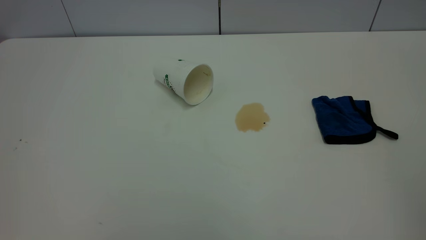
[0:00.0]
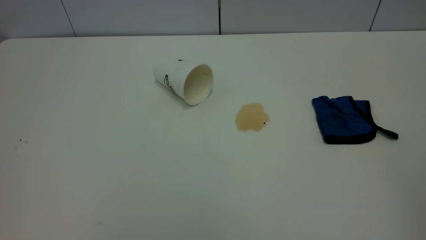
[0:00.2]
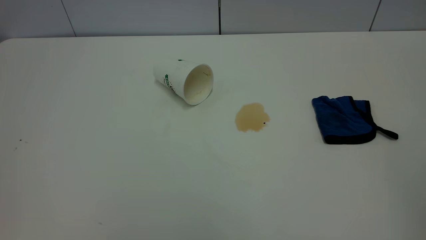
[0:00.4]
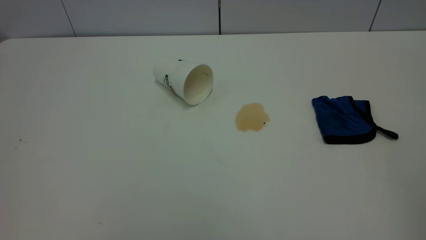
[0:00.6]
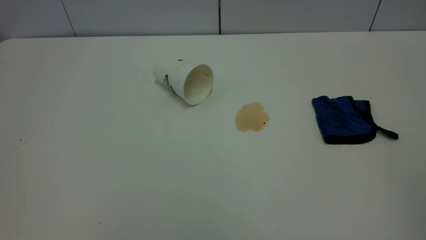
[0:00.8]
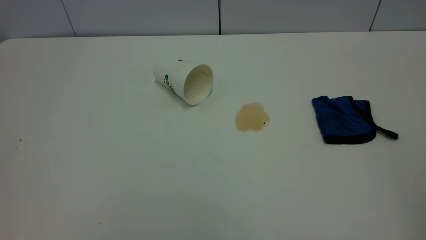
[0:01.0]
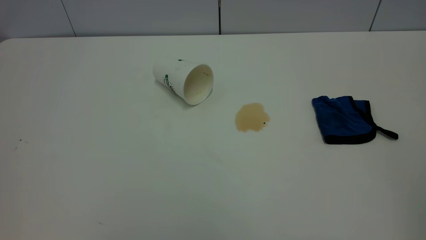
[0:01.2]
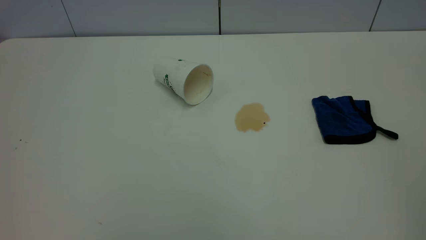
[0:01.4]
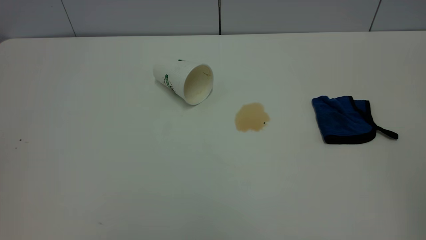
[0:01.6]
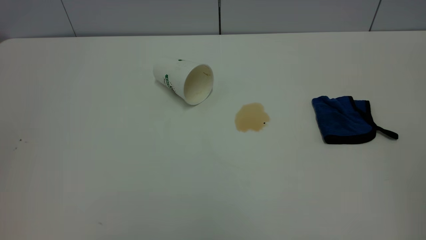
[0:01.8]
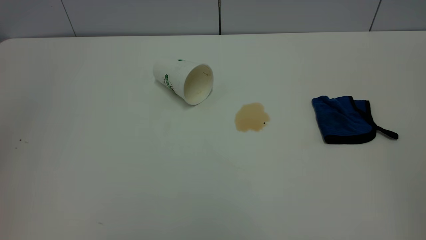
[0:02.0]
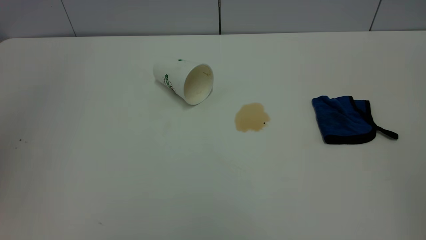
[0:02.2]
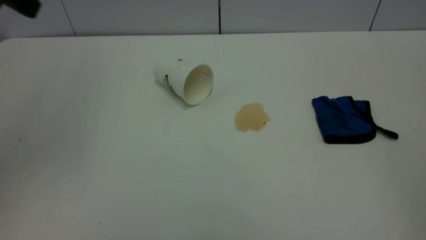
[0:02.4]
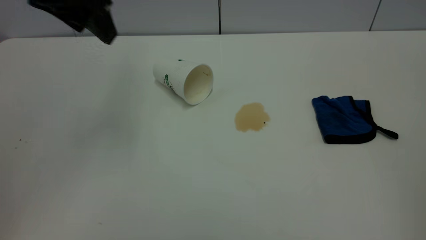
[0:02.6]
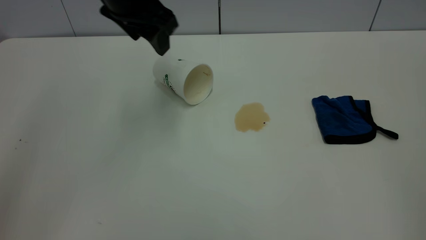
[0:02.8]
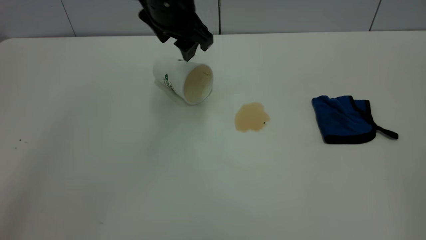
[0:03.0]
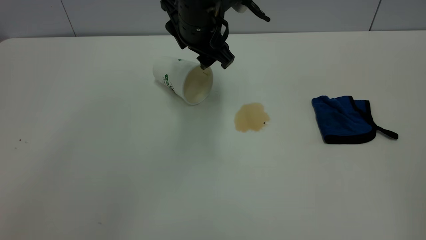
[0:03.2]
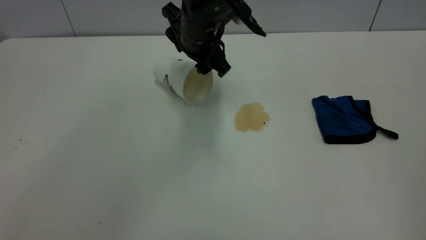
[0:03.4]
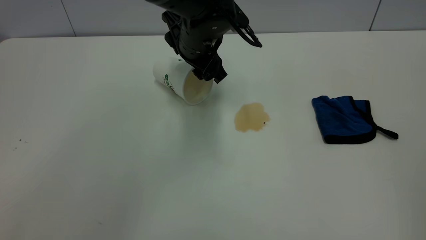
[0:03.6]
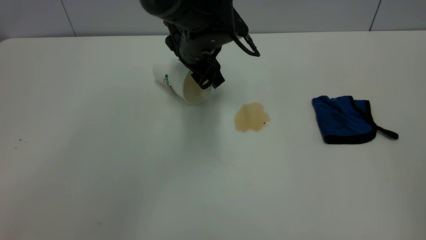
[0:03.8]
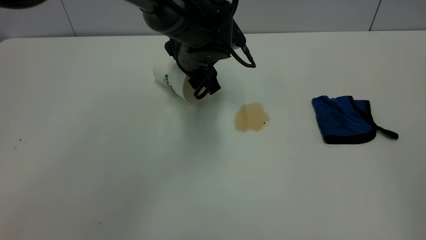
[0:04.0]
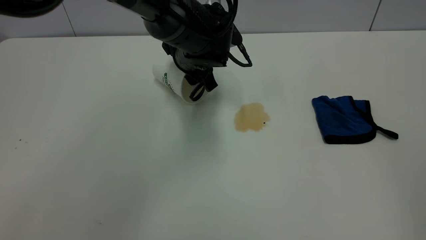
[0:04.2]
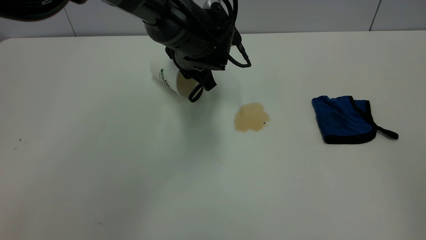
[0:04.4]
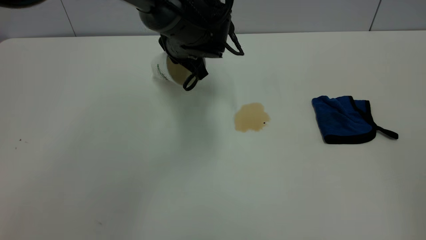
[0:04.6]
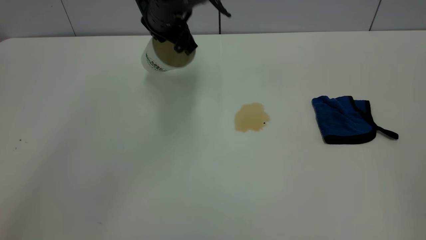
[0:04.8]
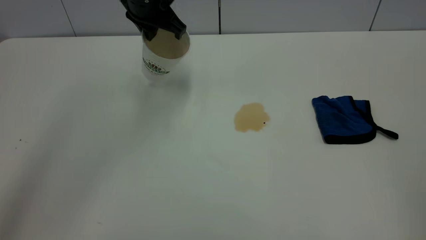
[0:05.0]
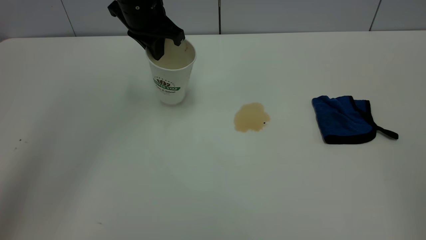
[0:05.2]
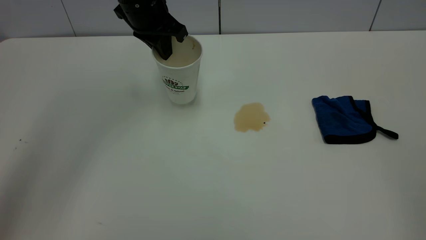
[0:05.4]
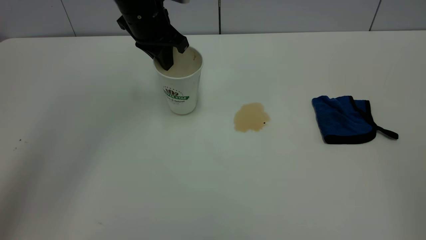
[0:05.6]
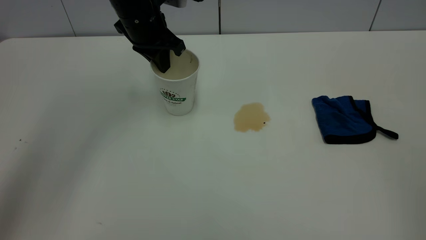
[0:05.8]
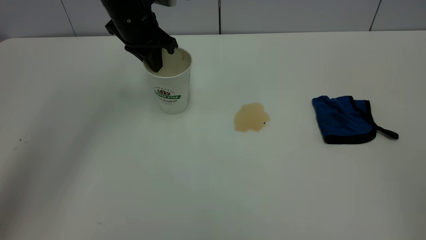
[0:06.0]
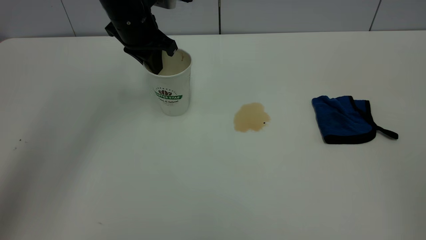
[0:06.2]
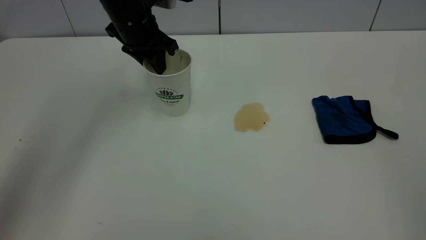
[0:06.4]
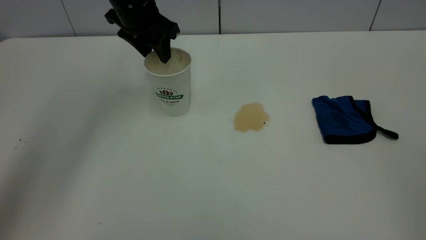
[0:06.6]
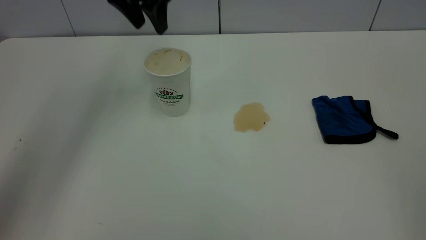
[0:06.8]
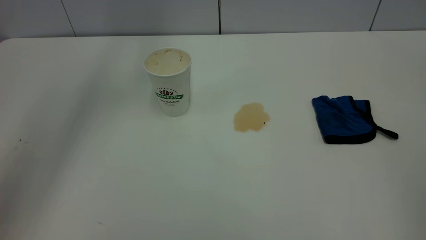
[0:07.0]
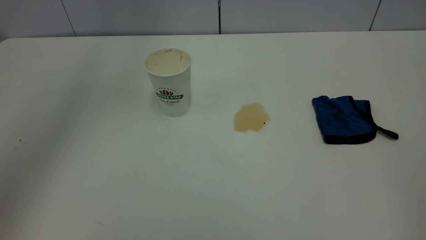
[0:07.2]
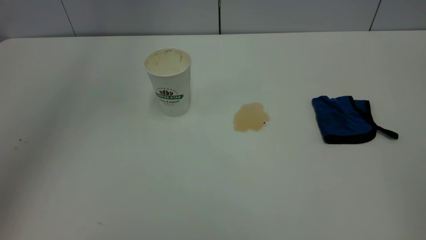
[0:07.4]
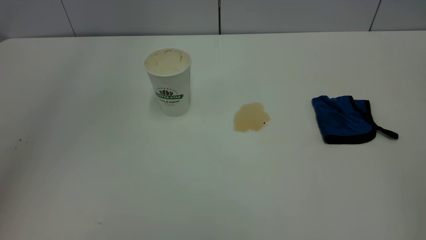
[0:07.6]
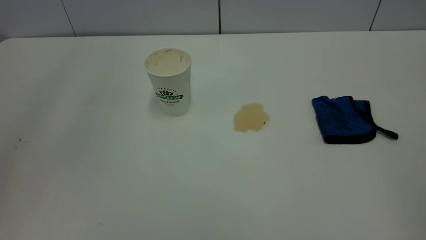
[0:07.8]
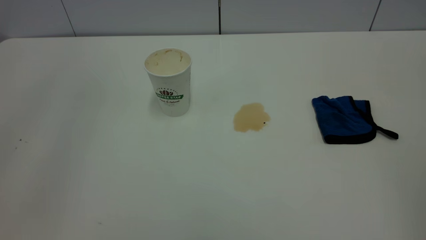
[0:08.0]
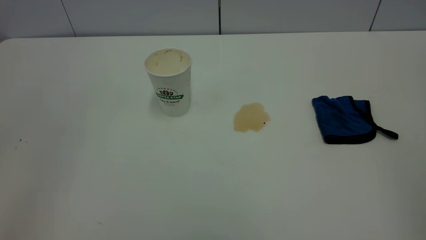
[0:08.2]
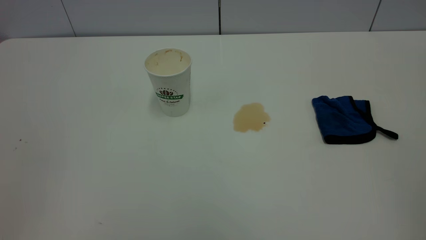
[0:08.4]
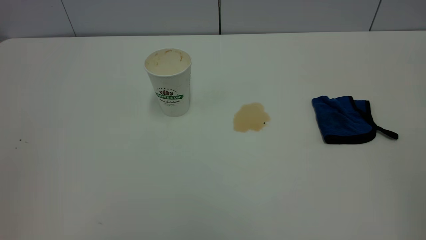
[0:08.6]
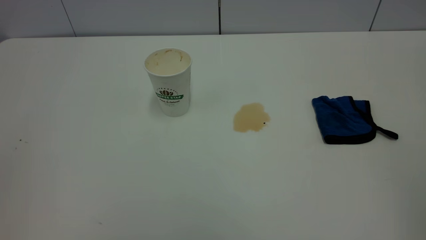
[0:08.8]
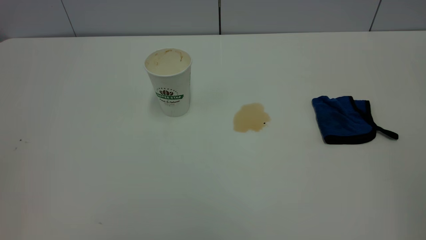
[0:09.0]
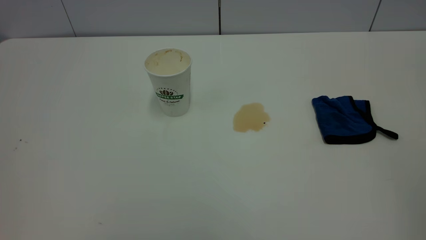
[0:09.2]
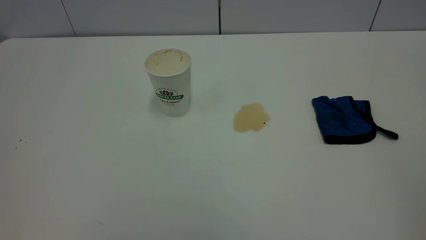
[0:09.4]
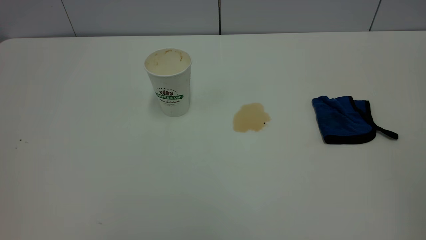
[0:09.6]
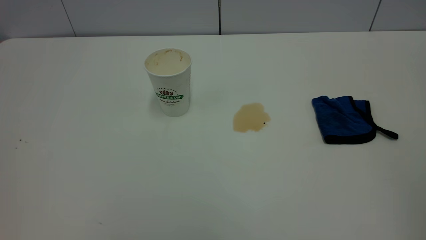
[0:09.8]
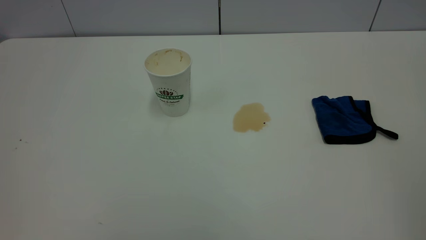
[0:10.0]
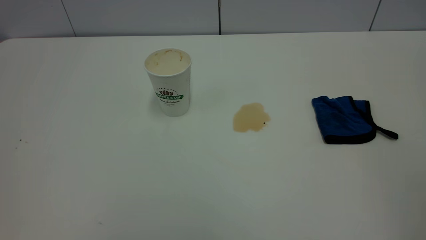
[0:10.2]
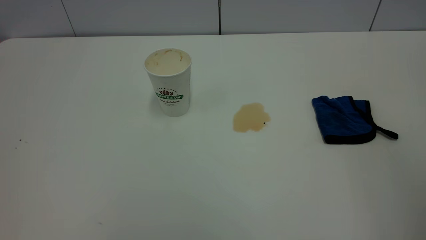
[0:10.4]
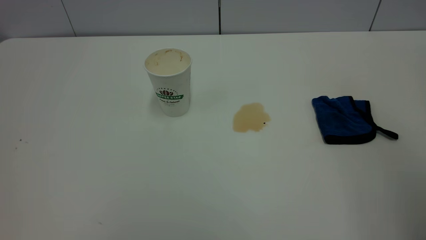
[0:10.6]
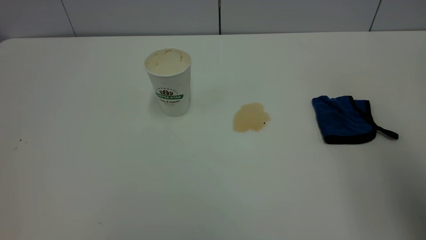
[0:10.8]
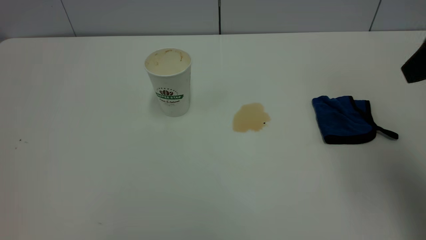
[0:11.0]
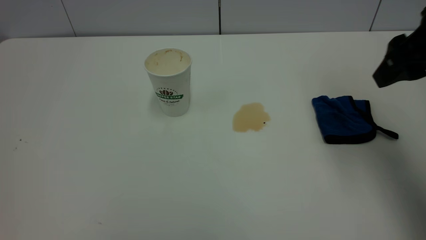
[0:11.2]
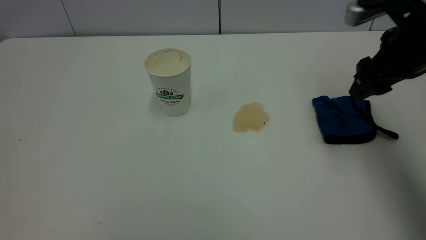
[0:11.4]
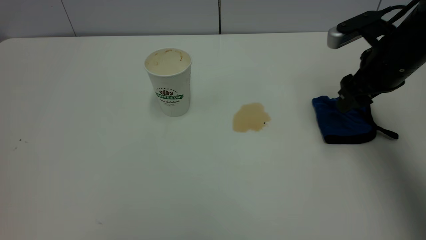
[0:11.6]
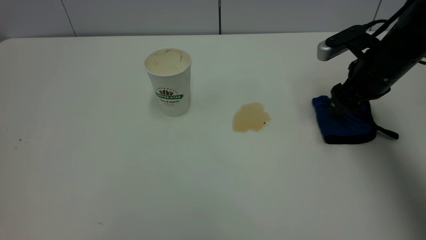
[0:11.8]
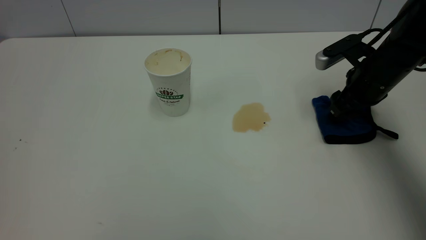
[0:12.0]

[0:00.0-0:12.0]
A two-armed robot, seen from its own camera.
Task of the whole recording: the left gripper pick up the fallen cup and place it upright, the right gripper grasp the blue rag and wipe the tea stain on the table, the right gripper put the blue rag back in its original position.
Step, 0:00.0 to 0:06.6: Stand the paper cup upright.
0:01.6 to 0:03.0: The left gripper goes about 50 cm forward, to the right and downward.
0:03.0 to 0:04.4: The left gripper heads downward, covering roughly 10 cm, and closes up.
0:04.4 to 0:06.0: The left gripper travels to the left and upward by roughly 15 cm.
0:06.0 to 0:07.6: The left gripper moves upward and backward, some 30 cm, and opens.
0:10.4 to 0:12.0: The right gripper is displaced forward and downward by roughly 40 cm.

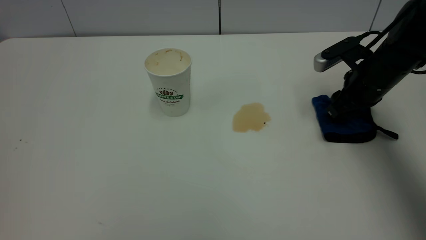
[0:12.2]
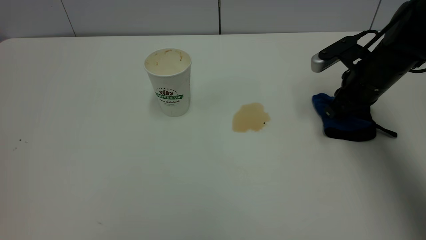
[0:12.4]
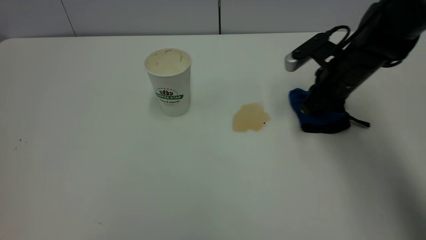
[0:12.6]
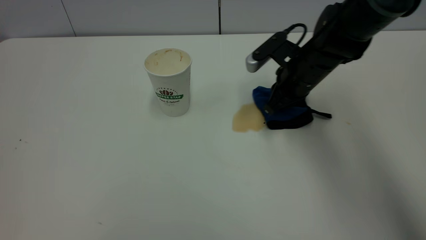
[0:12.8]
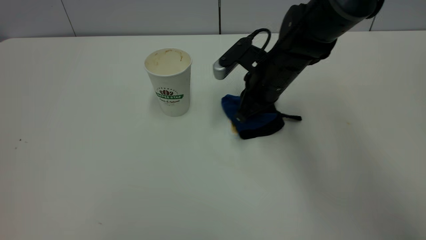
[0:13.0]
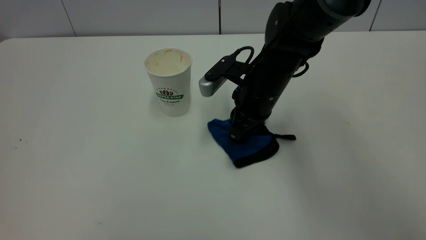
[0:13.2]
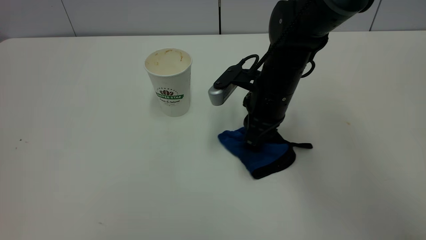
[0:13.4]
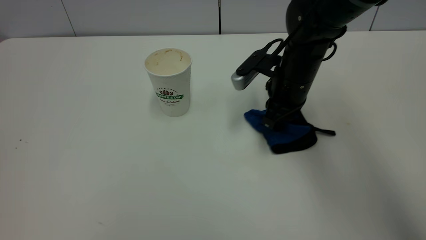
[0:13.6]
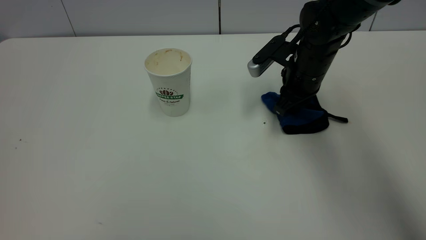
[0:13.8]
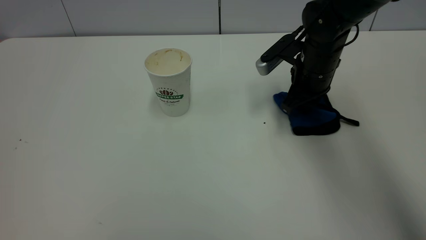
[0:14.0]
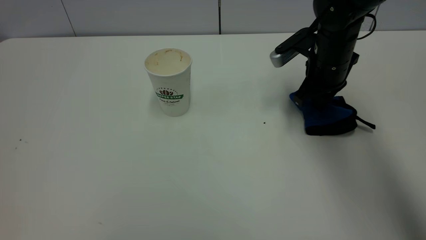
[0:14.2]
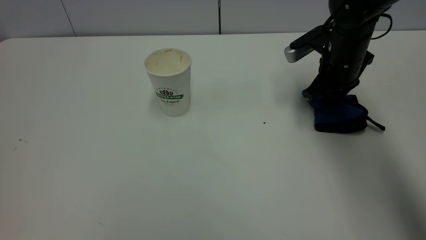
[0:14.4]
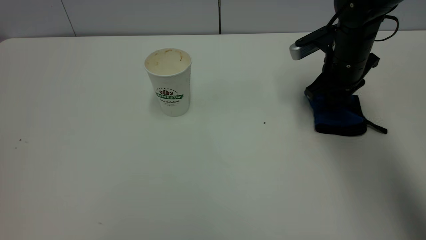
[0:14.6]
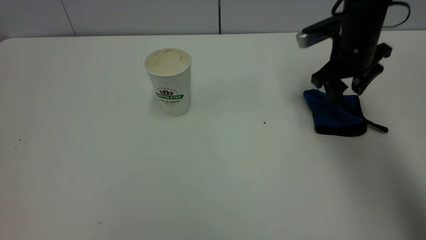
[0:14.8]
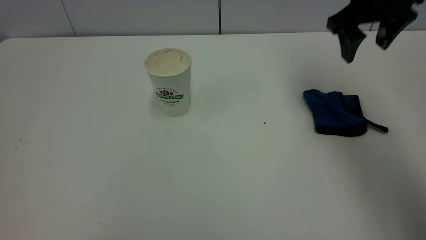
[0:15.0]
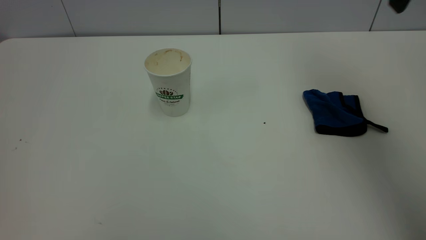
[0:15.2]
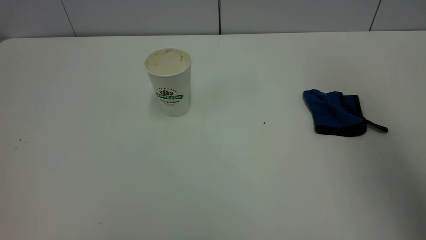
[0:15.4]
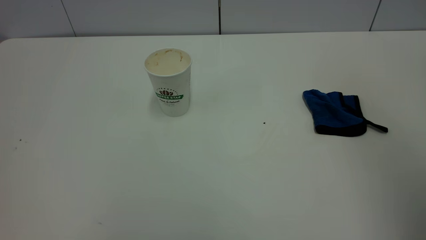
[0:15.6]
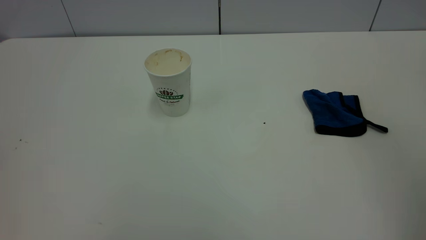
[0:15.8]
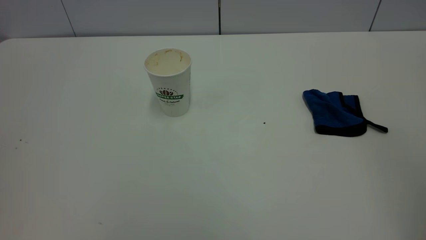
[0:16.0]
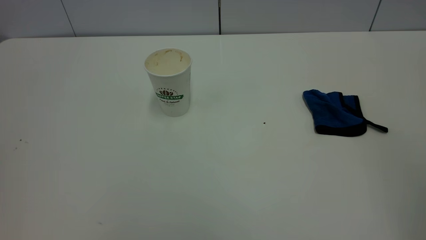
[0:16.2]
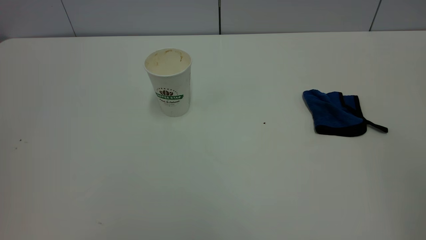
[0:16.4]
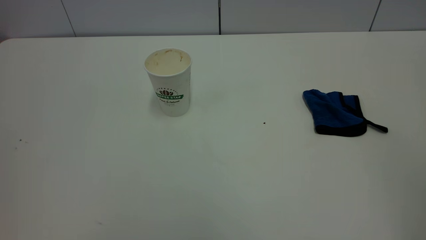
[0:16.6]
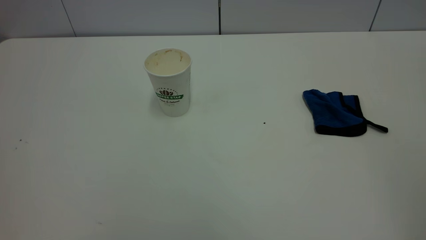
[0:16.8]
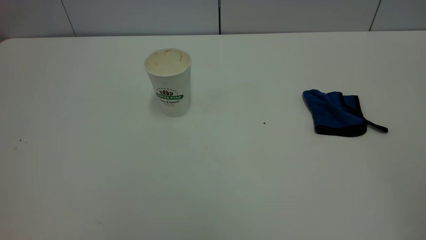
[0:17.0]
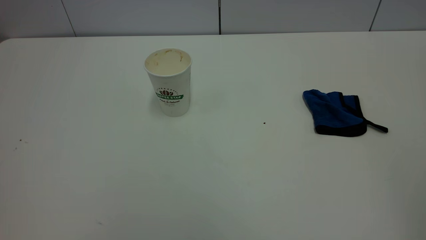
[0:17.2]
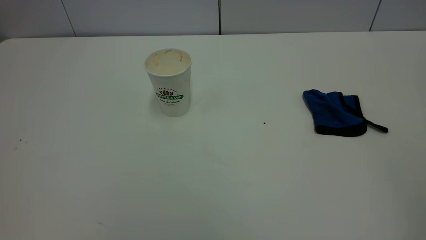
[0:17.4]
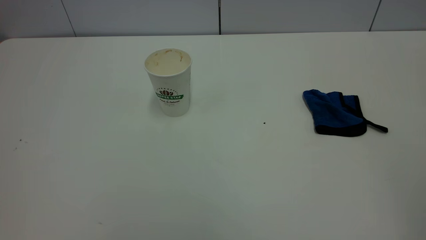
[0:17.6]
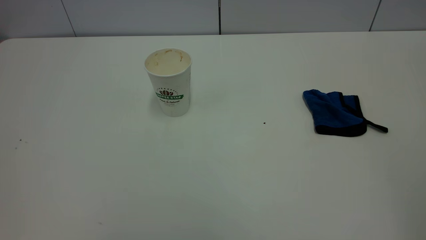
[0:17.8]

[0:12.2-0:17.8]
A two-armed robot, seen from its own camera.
Task of the whole recording: the left gripper pick up the fallen cup and place it upright, the right gripper grasp the blue rag and wipe the tea stain on the table, the right gripper put the blue rag back in its original position.
Step, 0:12.2 to 0:14.8: Wipe the stains off the table with a rag.
0:12.2 to 0:13.6: The right gripper is displaced to the left by roughly 15 cm, and closes up.
0:13.6 to 0:15.0: The right gripper shifts approximately 20 cm upward and to the right, and opens up.
0:15.0 to 0:16.4: The right gripper heads backward, covering roughly 35 cm.
